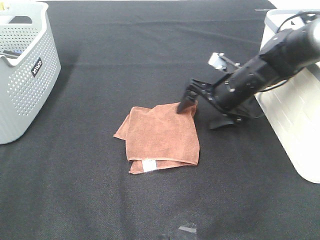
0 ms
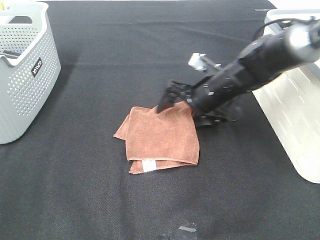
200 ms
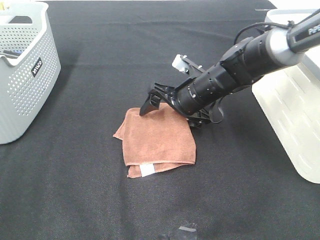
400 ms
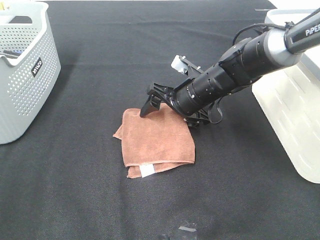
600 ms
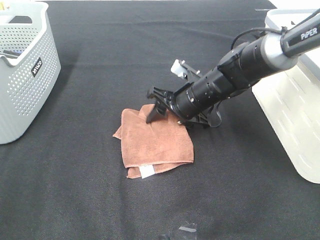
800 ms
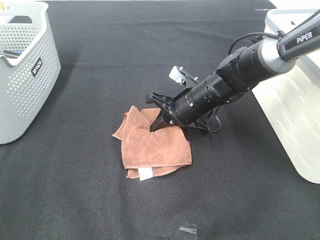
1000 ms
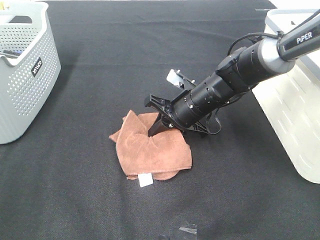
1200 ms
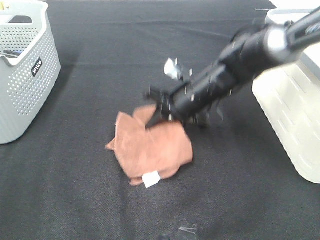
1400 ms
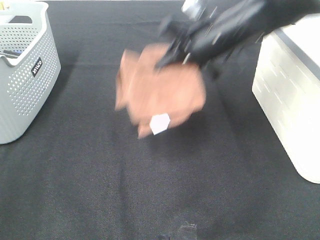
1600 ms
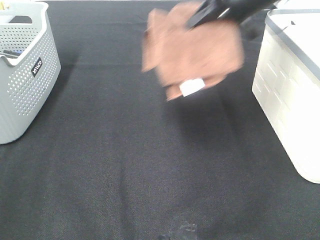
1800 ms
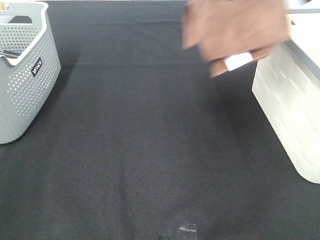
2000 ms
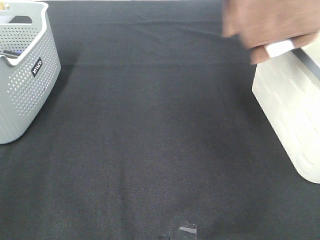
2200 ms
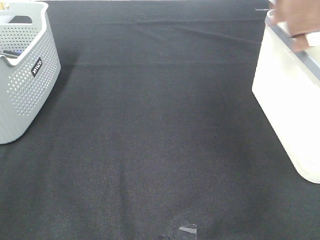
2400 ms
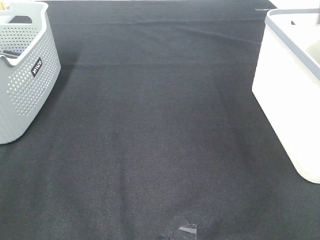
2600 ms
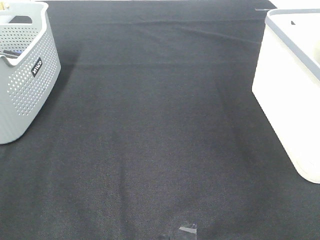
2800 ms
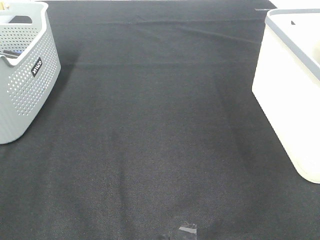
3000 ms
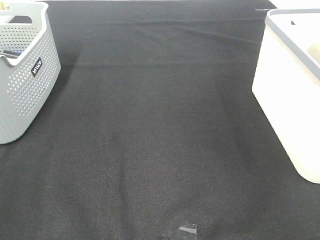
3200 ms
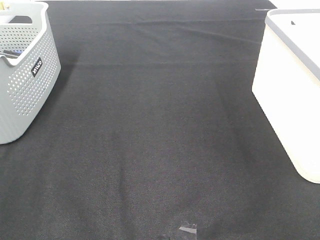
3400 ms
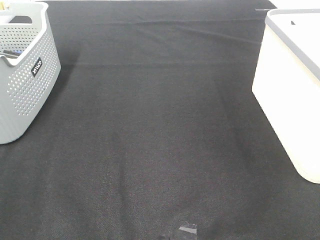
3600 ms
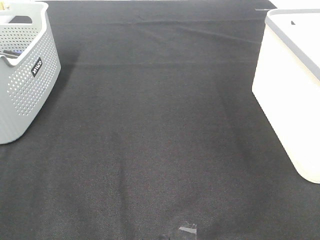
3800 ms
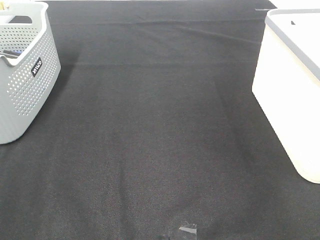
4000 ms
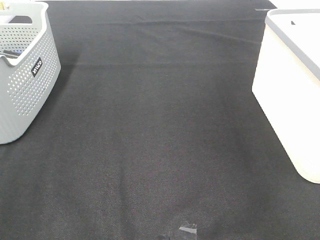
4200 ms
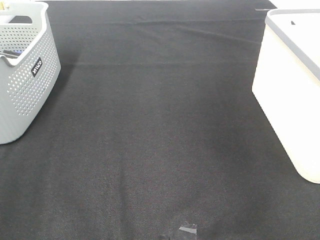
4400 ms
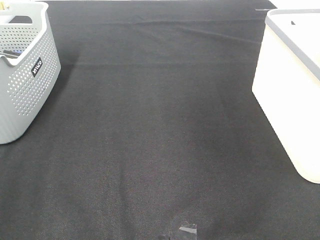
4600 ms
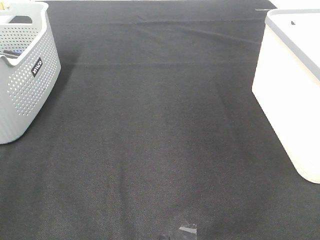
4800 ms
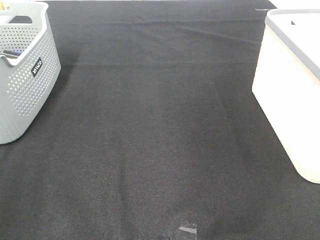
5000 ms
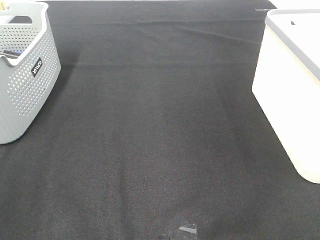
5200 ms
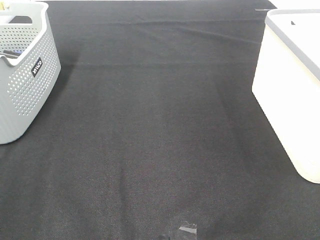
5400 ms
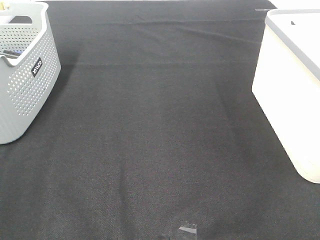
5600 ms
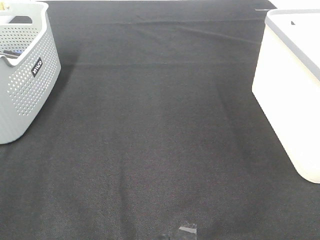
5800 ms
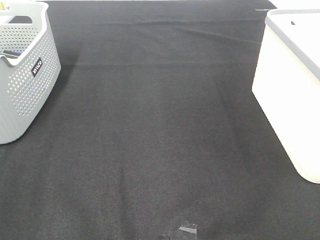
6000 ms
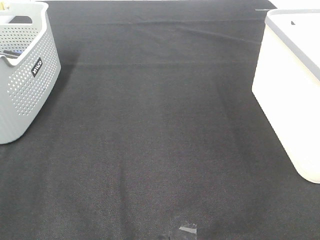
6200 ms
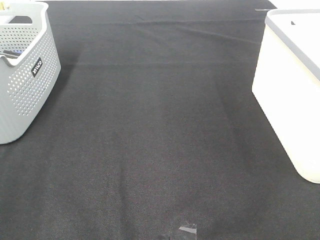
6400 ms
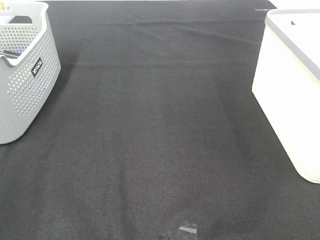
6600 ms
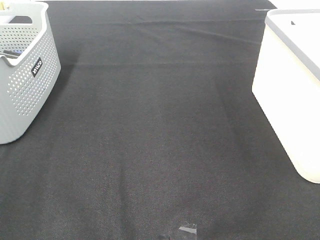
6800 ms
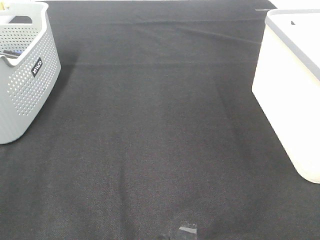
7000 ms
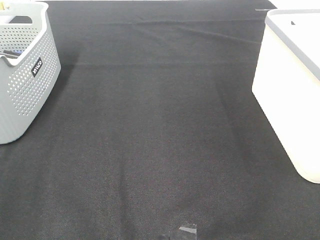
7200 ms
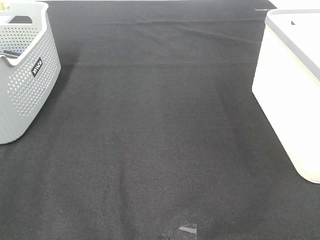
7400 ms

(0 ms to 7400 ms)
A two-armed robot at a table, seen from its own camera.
Step, 1200 ms - 3600 ms: Right hand: place the brown towel in right basket.
0 ms - 1400 ms: The right gripper is displaced to the left by some 5 cm, and closes its fingers.
1400 ms - 3000 ms: The right gripper is displaced to the right and upward by roughly 40 cm.
6000 ms - 7400 ms: Both grippers stay put.

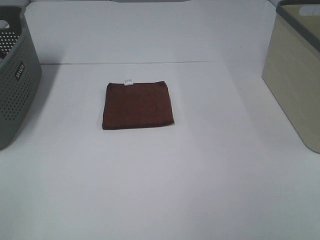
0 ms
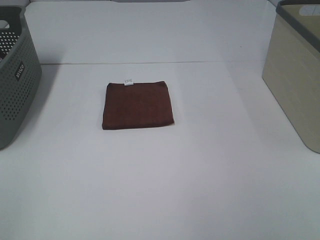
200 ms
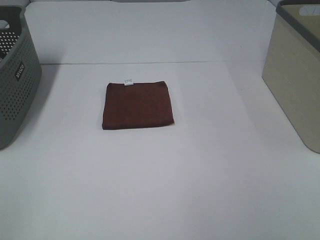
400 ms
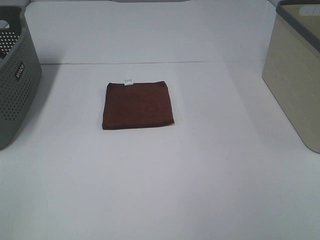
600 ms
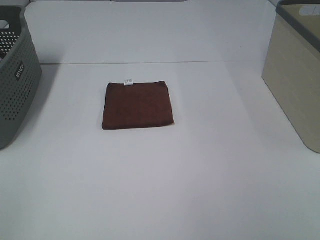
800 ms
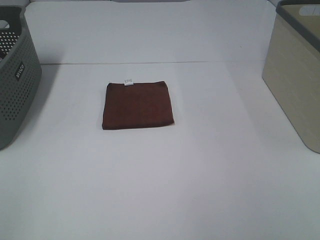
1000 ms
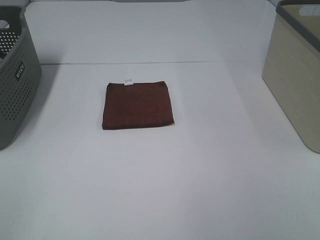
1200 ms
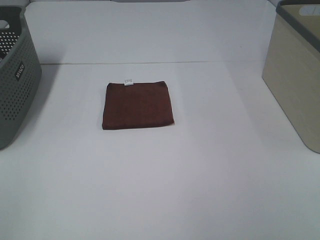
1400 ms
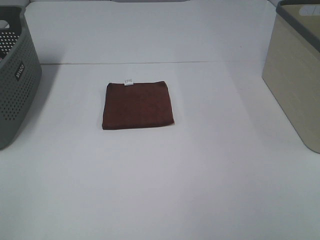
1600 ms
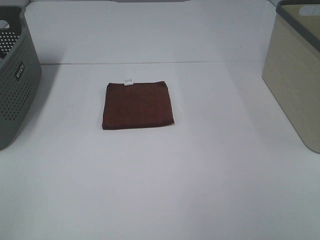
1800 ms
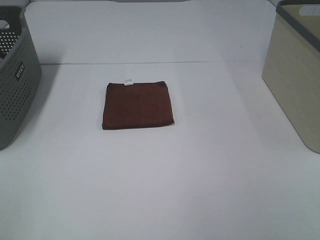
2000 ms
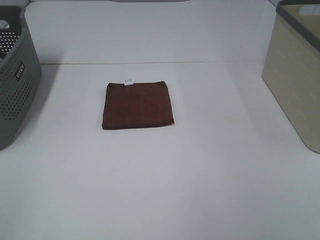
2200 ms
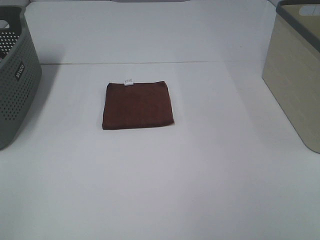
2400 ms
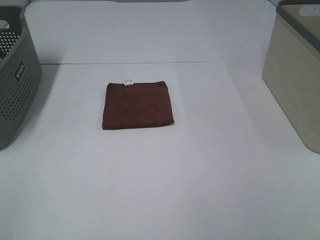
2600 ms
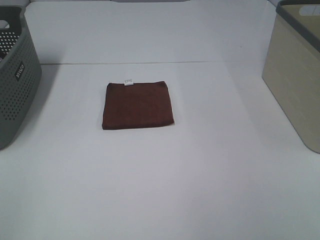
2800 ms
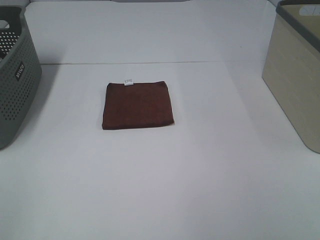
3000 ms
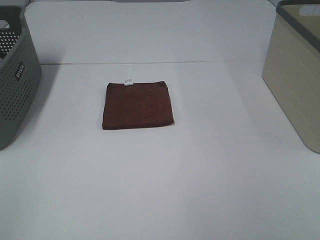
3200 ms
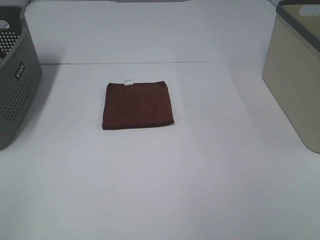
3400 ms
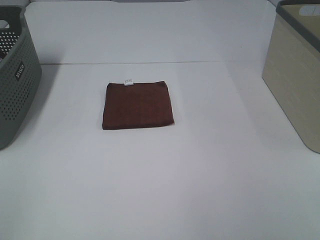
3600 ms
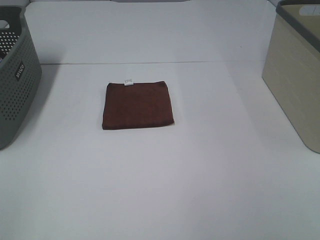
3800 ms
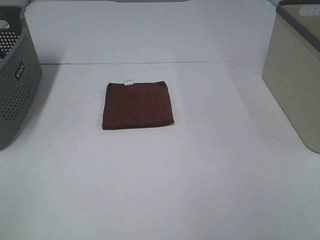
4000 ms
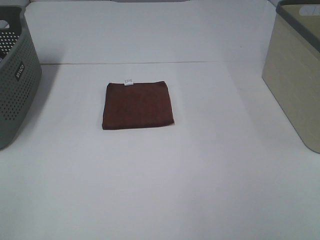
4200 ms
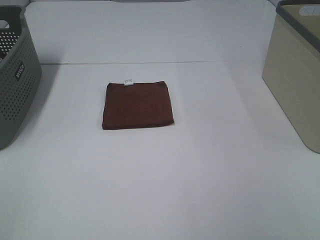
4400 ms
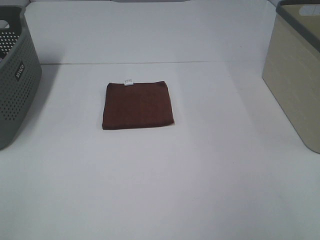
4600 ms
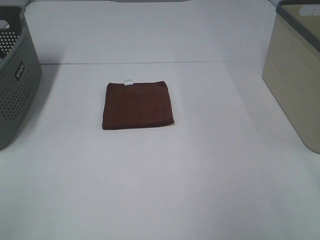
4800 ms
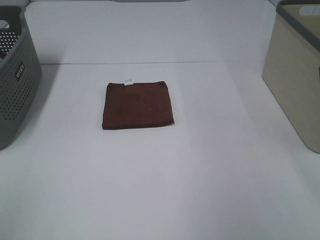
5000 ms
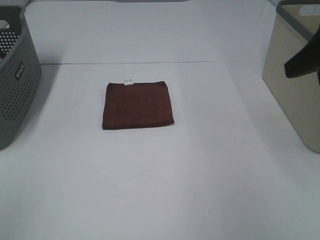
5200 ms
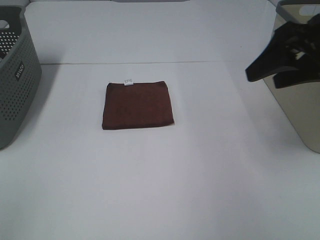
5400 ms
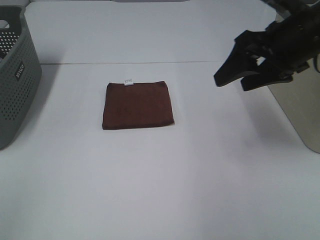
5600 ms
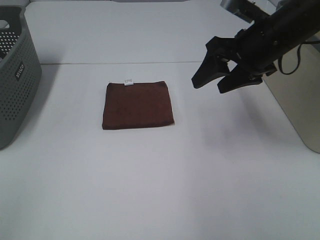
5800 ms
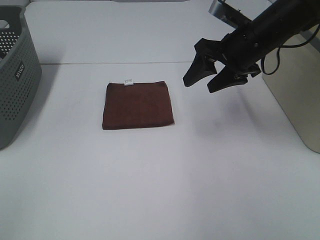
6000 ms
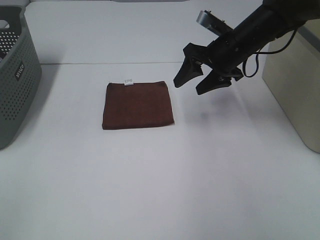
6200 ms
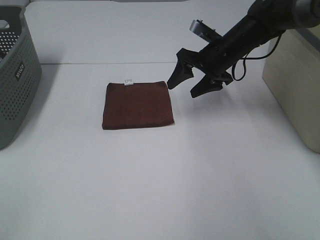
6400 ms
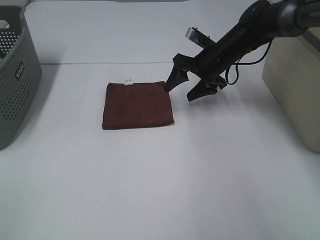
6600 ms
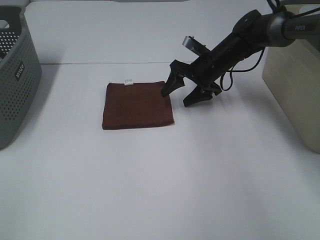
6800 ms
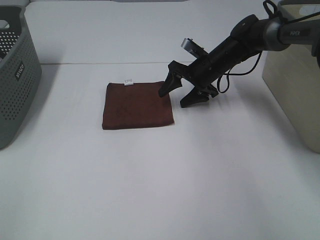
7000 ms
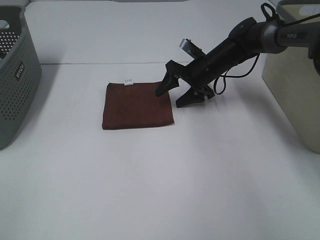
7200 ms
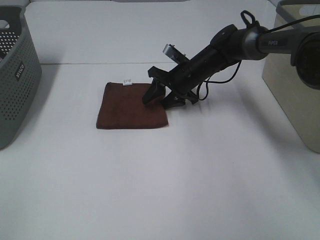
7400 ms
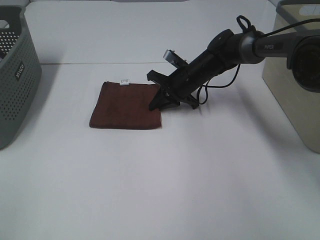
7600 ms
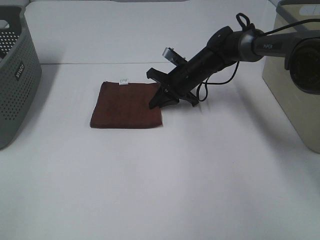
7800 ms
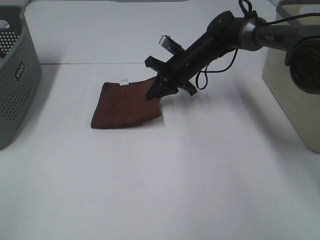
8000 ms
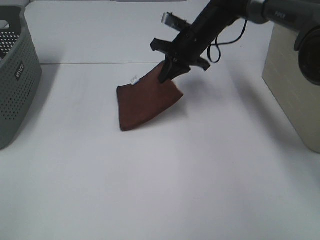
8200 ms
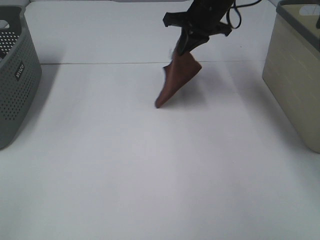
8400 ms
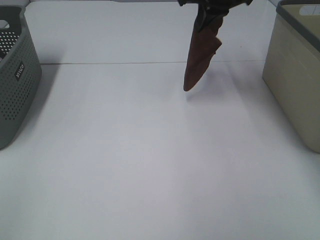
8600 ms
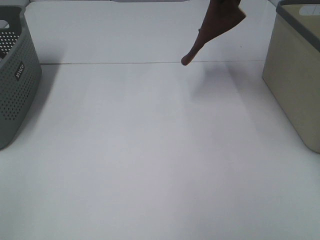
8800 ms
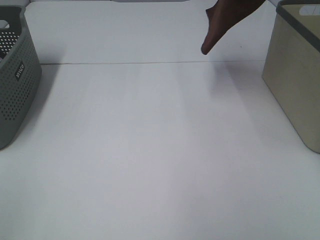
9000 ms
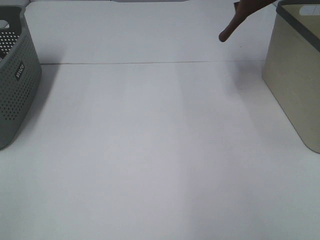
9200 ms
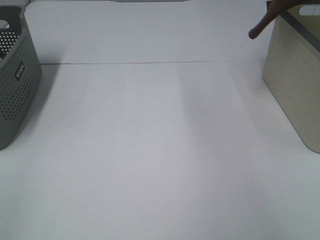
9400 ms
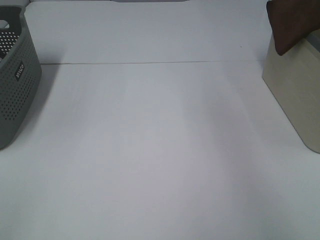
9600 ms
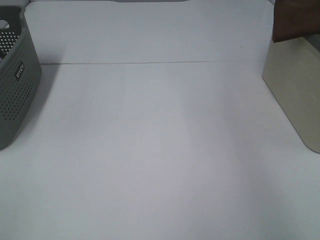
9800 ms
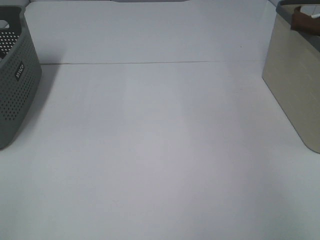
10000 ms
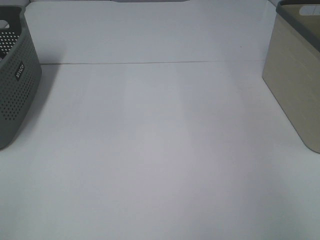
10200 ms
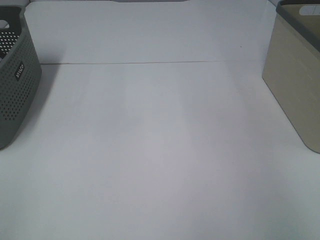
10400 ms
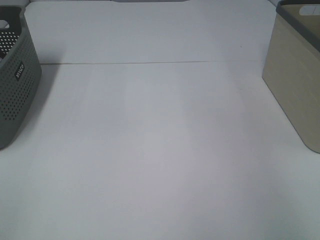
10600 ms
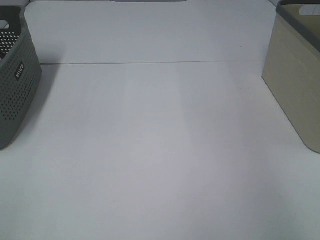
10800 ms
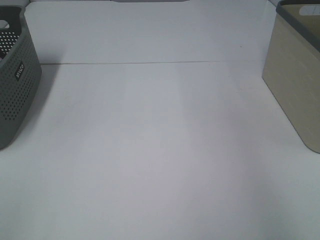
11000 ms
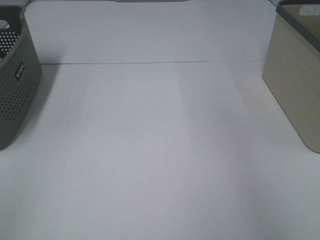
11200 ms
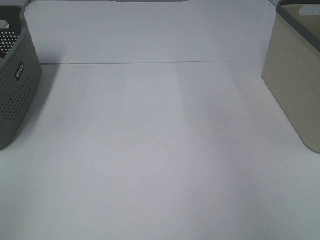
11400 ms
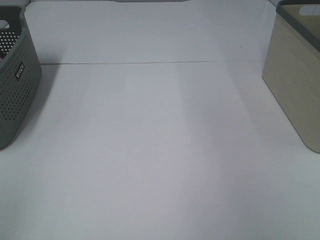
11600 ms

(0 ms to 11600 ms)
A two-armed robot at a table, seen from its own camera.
Step, 0 ms - 7800 ms: Right hand: grab the folded brown towel.
Step, 8000 ms - 10600 ms: Right hand: place the brown towel in right basket.
0 ms - 2800 ms: Neither gripper changes place.
4400 ms - 5800 ms: The right gripper is displaced forward by approximately 30 cm.
5800 ms - 7200 ms: The right gripper heads downward and forward, covering about 20 cm.
7200 ms - 8800 ms: The right gripper shifts roughly 25 cm upward, and closes.
8800 ms - 10200 ms: The right gripper shifts some 25 cm to the right.

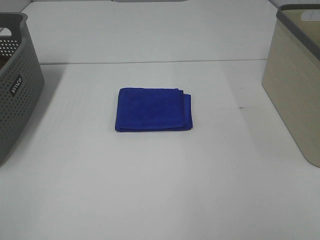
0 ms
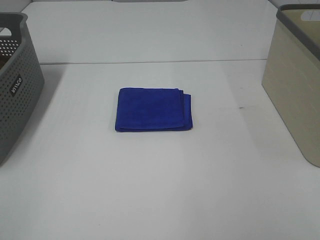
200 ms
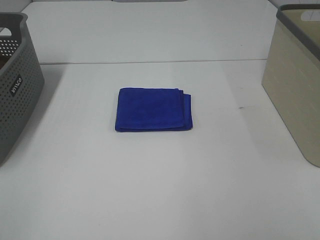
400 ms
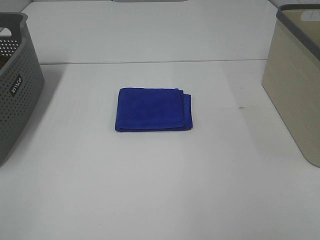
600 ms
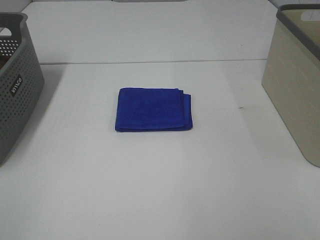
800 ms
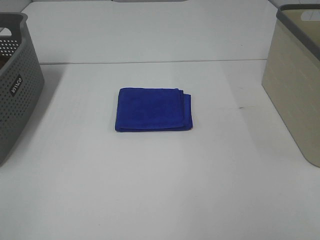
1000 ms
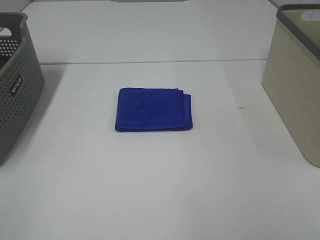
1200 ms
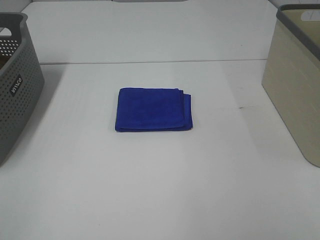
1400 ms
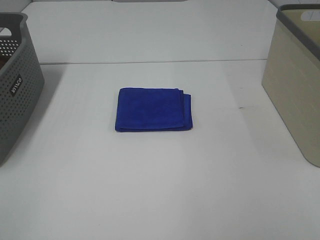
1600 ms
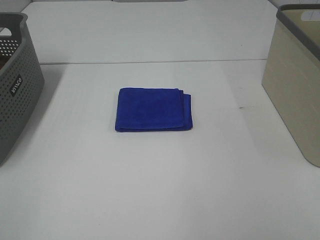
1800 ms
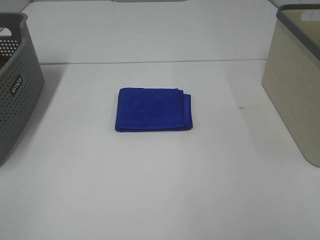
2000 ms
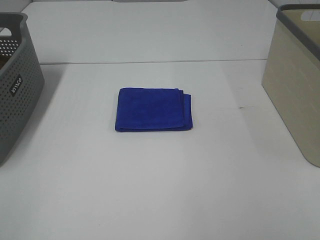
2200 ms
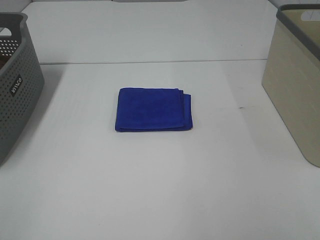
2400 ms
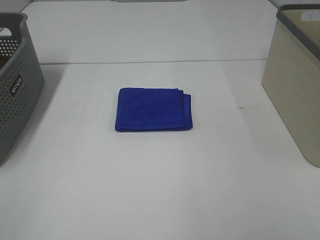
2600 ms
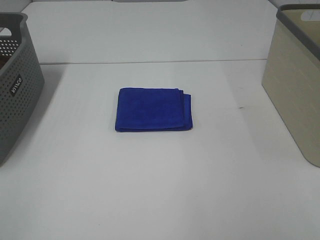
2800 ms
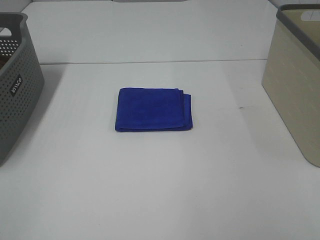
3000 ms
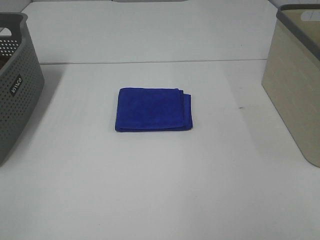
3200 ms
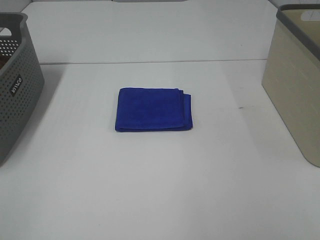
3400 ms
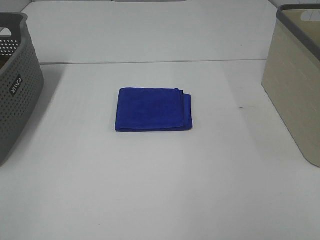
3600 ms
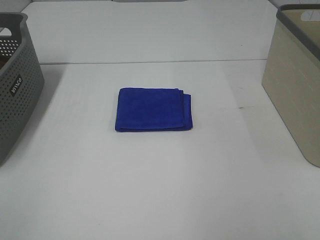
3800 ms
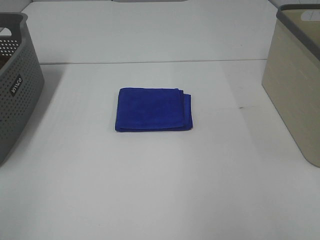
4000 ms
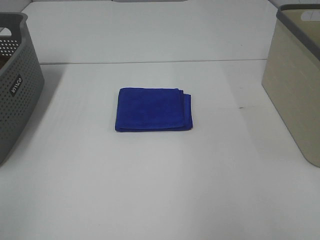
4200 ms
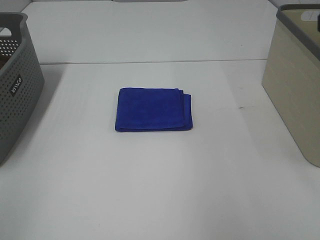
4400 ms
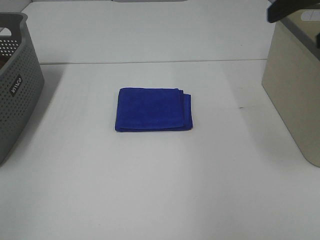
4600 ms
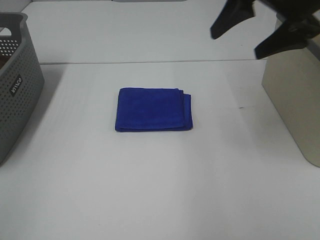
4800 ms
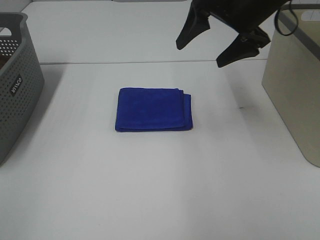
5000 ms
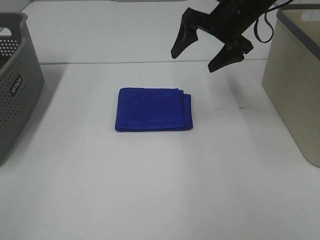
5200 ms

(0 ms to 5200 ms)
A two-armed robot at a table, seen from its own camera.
0 ms - 3400 ms: Both grippers stay put.
3400 ms - 5200 ms: The right gripper shifts roughly 40 cm forward.
